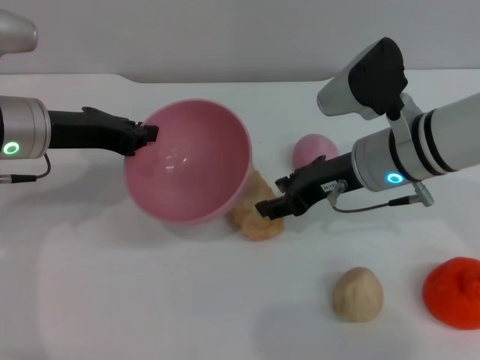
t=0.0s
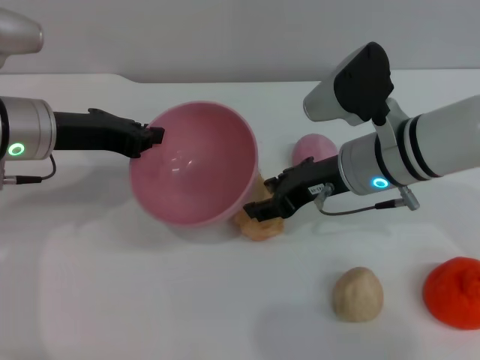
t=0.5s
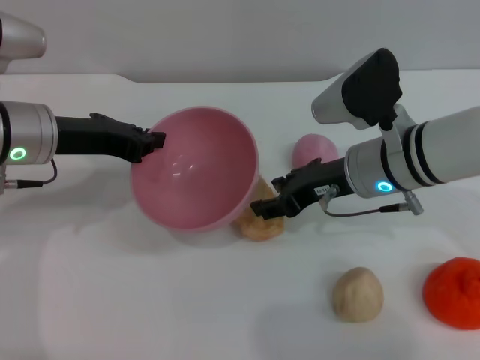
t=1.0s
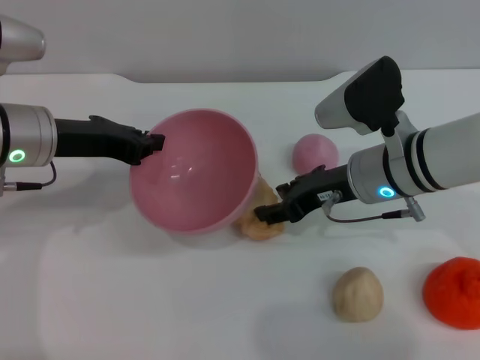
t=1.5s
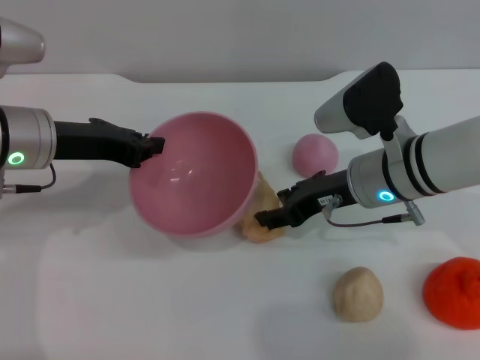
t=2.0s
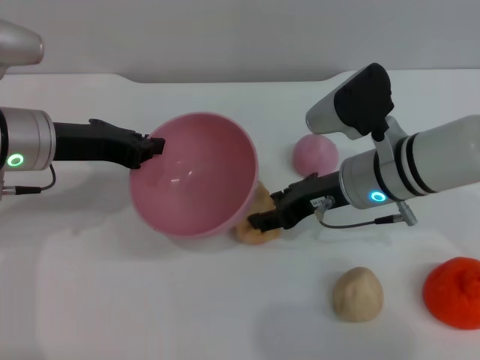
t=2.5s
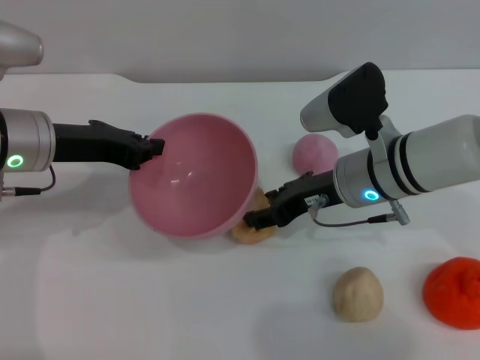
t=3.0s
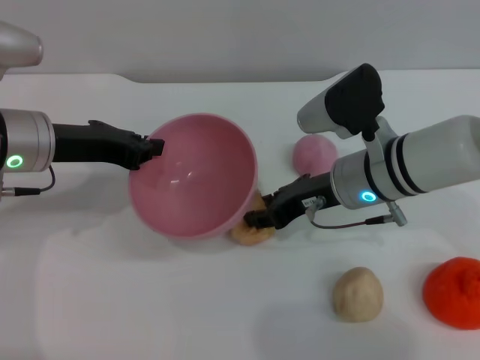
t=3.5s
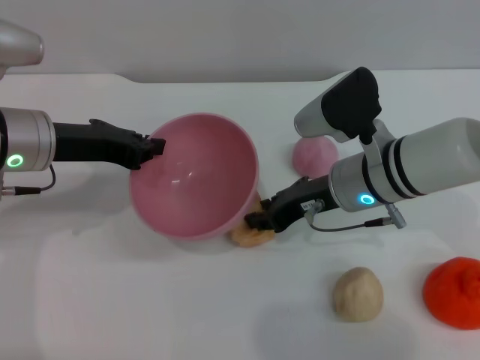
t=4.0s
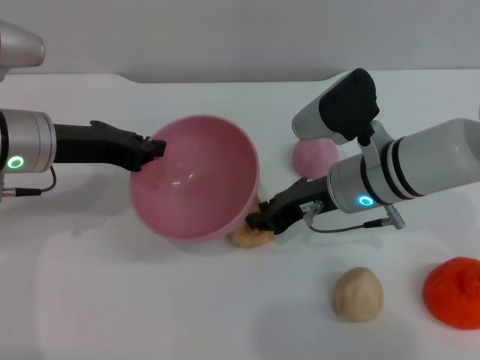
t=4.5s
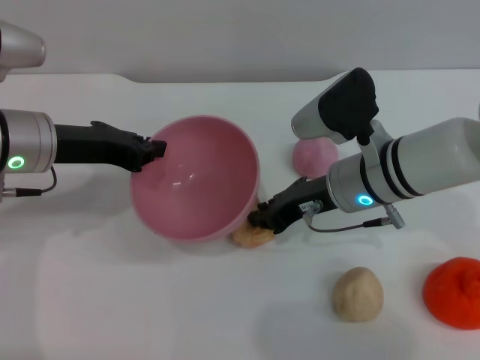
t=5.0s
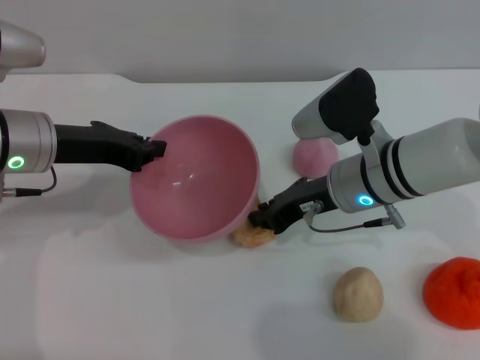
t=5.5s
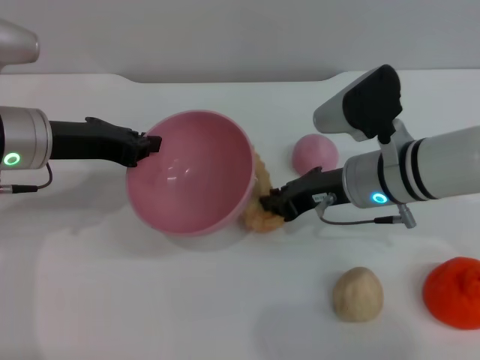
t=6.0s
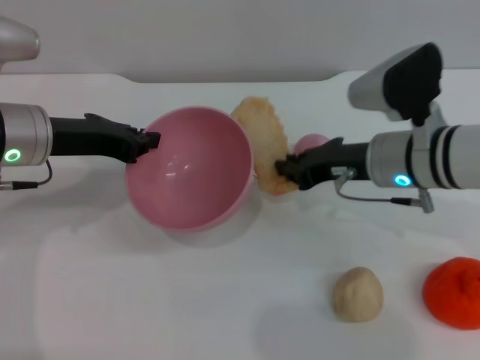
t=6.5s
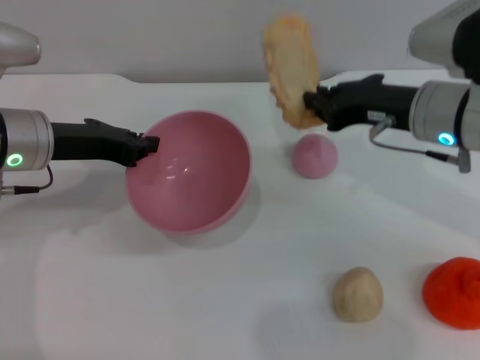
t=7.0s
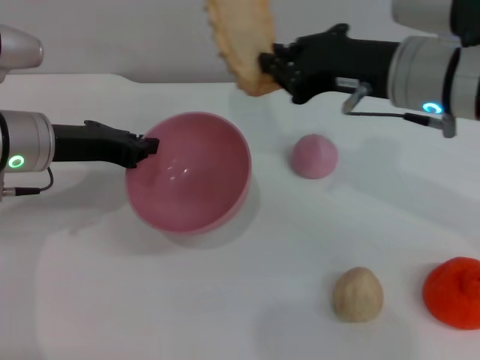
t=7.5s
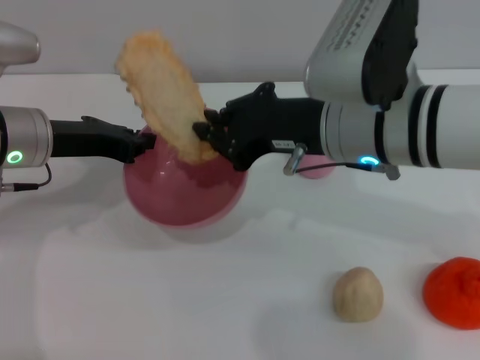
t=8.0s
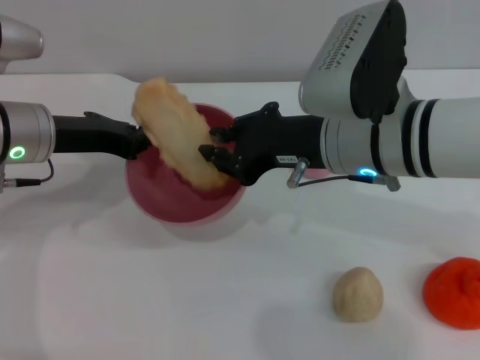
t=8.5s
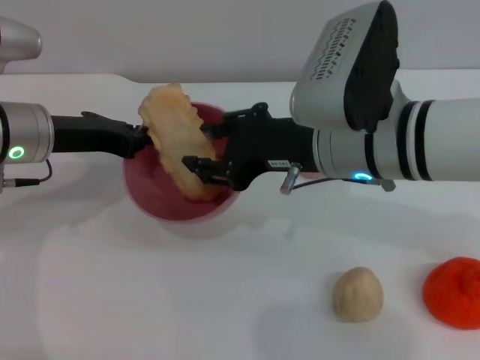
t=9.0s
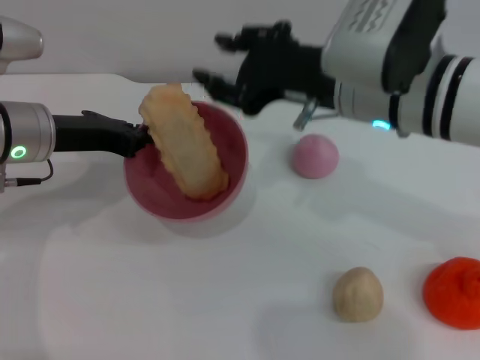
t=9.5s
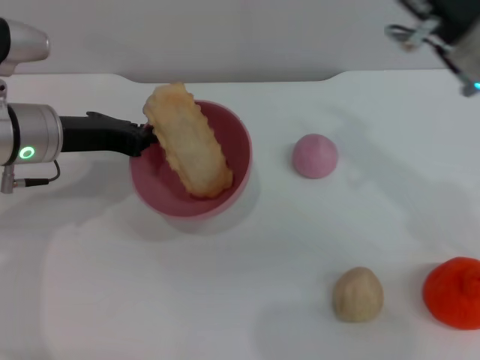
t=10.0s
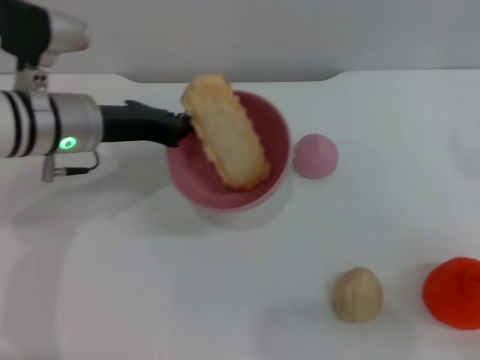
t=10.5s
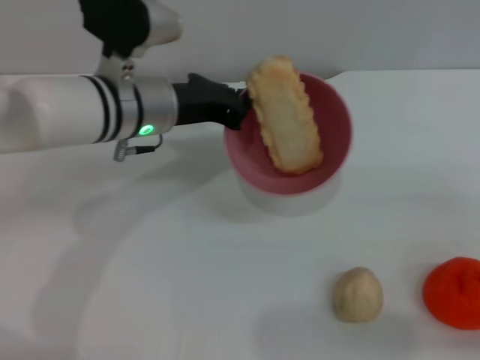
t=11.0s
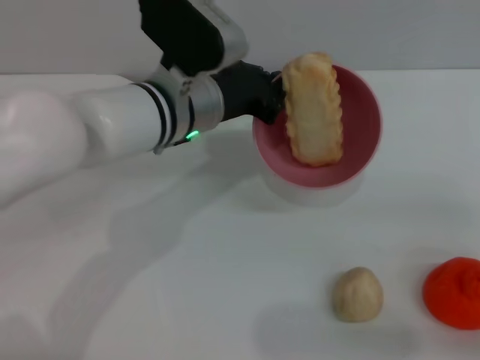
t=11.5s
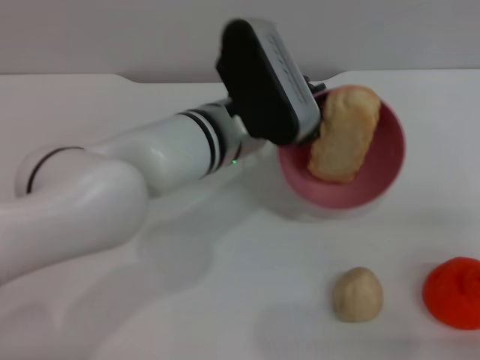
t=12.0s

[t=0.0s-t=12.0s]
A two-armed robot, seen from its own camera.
Task of the whole recording: put the bread into the pink bowl and pour it out repeatedly.
Step, t=0.0s to t=6.5s: Pick up the bread with the right gripper.
Step, t=7.5s to t=9.5s: Place the bread into the bowl.
t=0.0s to t=2.0s: The right gripper opens up.
t=2.0s to t=4.0s: The right gripper closes.
t=4.0s to t=6.0s: The right gripper closes up.
t=6.0s to t=8.0s: The right gripper is displaced upward by some 10 cm.
t=8.0s to t=10.0s: The right gripper is displaced to the right by approximately 5 cm, and opens.
t=10.0s to t=12.0s: The left gripper heads to the right, covering some 20 cm, while the right gripper heads to the right, downward and backward, covering roughly 25 cm.

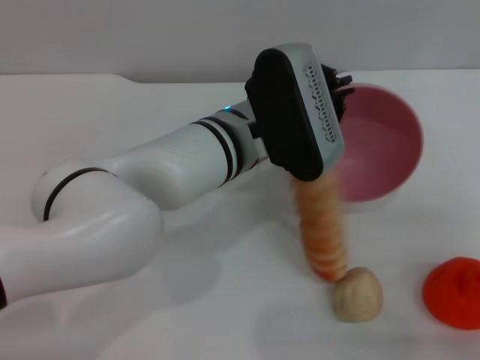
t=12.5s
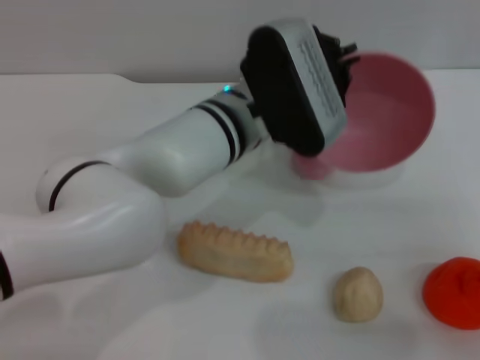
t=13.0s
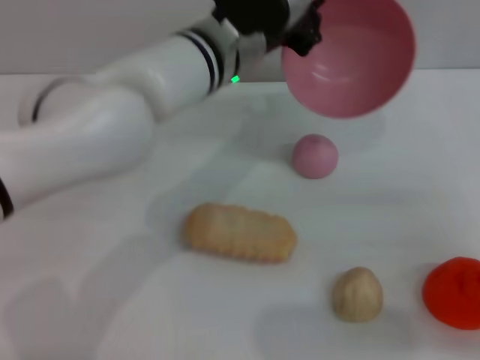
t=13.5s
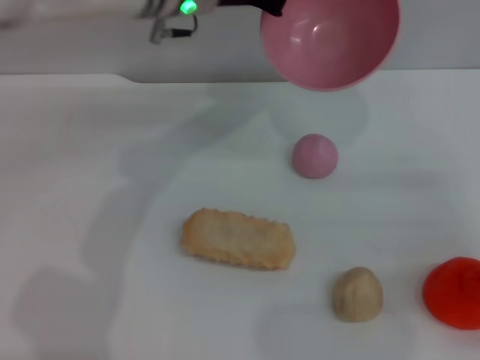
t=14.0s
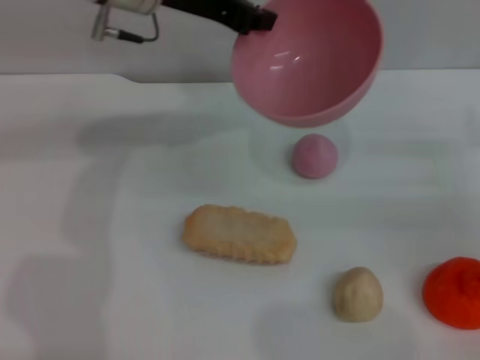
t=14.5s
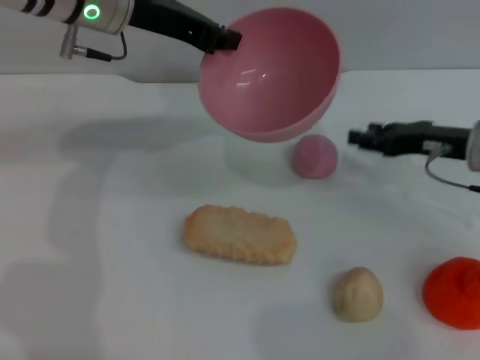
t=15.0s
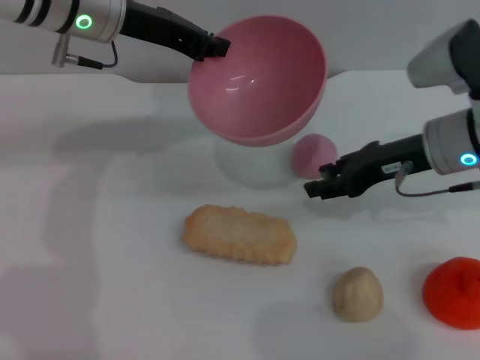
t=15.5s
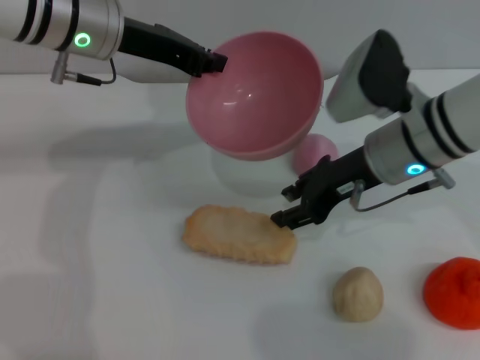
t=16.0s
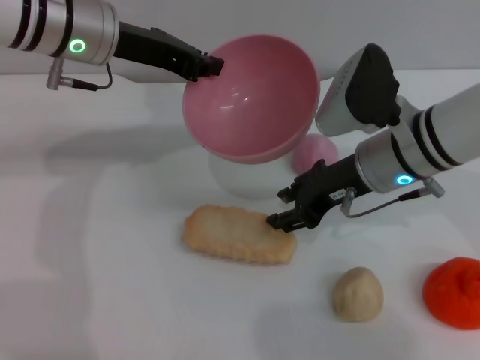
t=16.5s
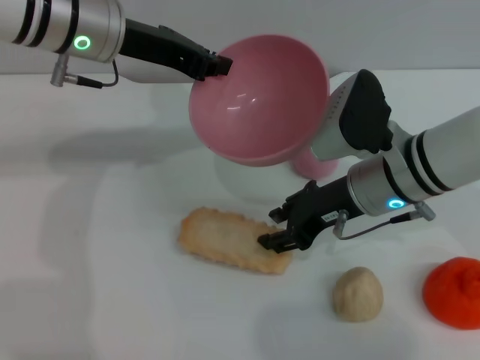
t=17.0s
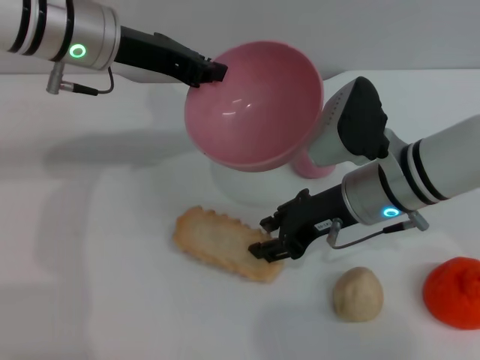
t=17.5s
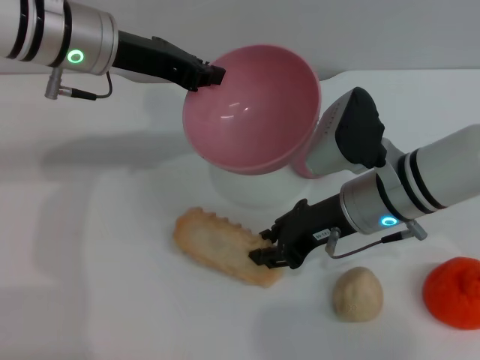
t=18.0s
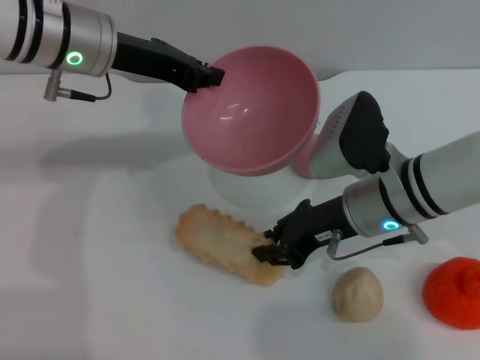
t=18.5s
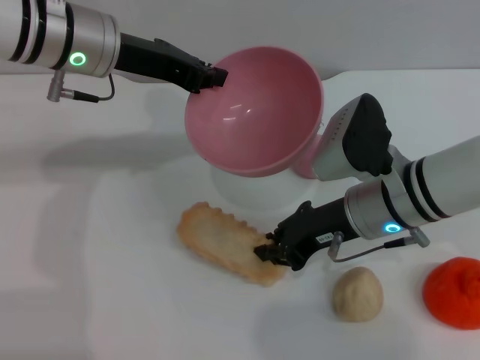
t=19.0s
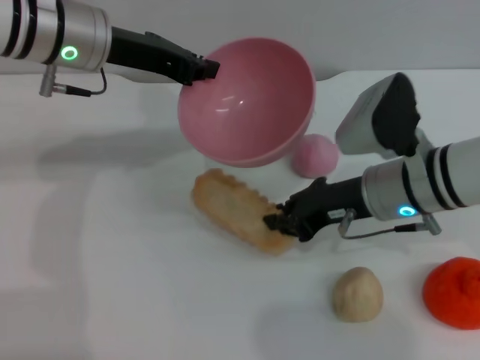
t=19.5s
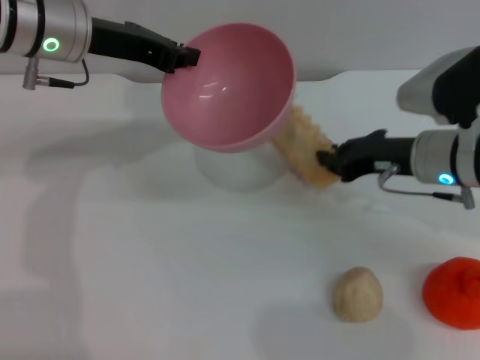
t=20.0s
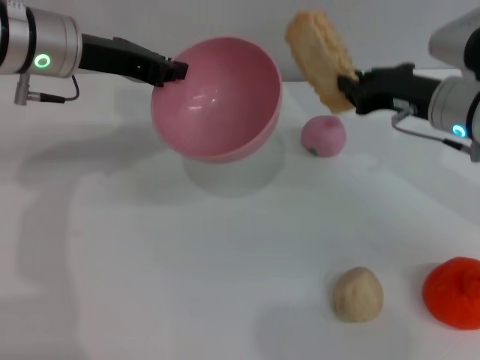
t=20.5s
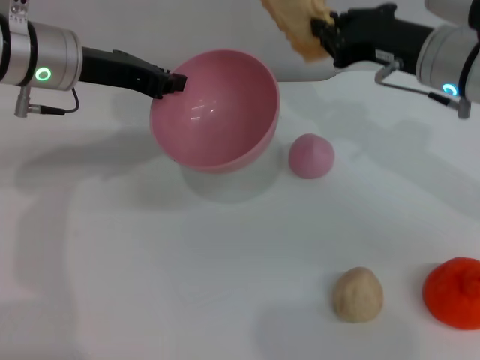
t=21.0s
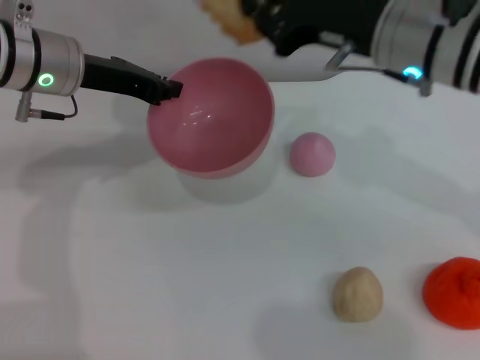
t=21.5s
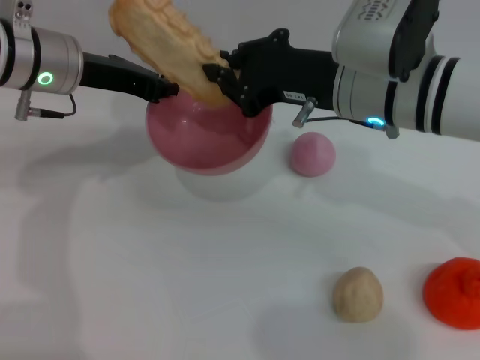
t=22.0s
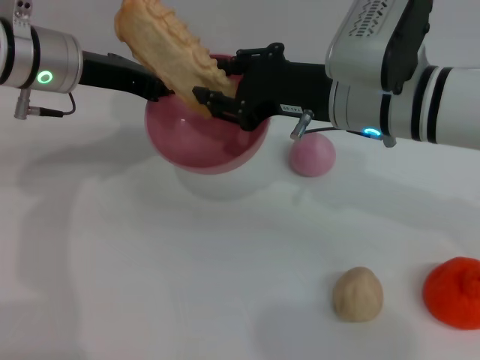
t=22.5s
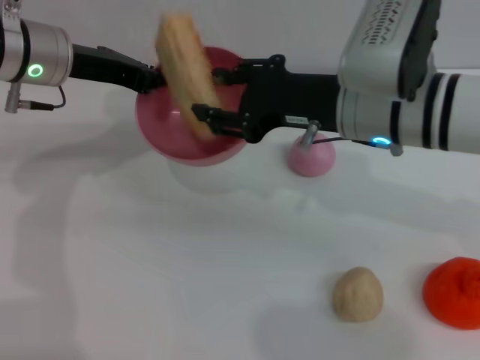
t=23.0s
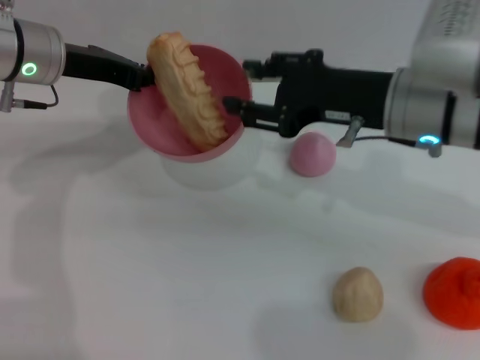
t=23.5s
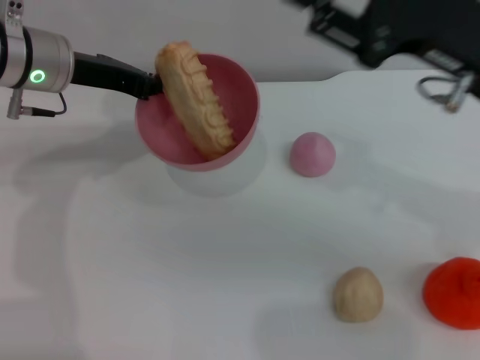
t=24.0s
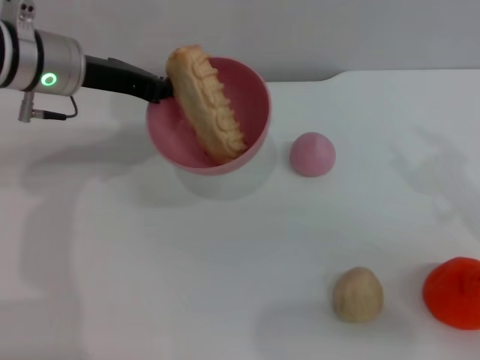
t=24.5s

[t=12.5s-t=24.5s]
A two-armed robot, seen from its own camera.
Task of the whole recording: put the bread into the pink bowl and pour it out repeatedly.
Step, t=13.0s to t=19.5s: Pick up the bread with the right gripper.
Step, t=20.0s to t=23.0s: Place the bread into the bowl.
t=12.5s to t=14.5s: The left gripper travels upward, to the left and forward by approximately 20 cm; the right gripper travels forward by roughly 10 cm.
t=14.5s to t=16.5s: The right gripper goes about 20 cm to the left, while the left gripper moves approximately 5 cm.
t=16.5s to t=18.5s: The right gripper closes its fingers.
t=18.5s to t=20.5s: The right gripper shifts roughly 10 cm to the right.
t=20.5s to t=22.5s: The right gripper moves to the left and upward, approximately 10 cm.
t=22.5s to t=24.5s: The right gripper goes about 15 cm to the right and backward, and opens up.

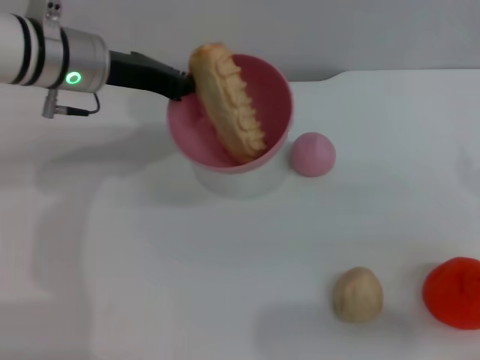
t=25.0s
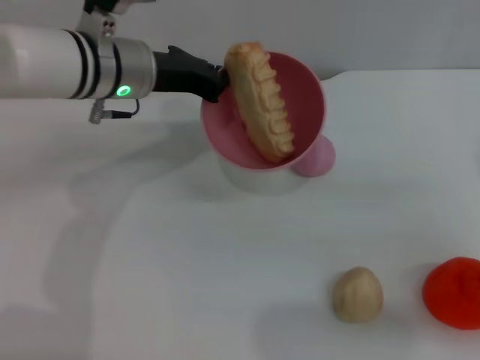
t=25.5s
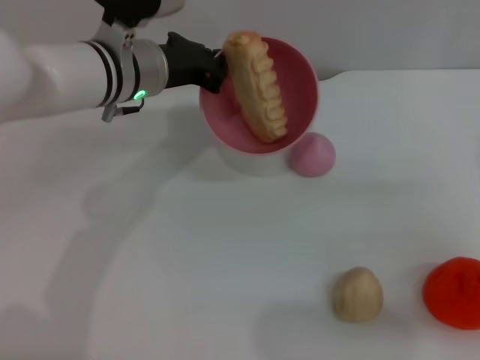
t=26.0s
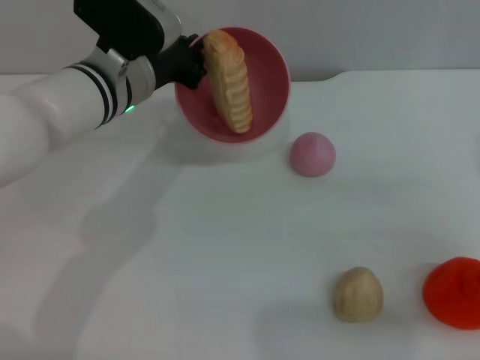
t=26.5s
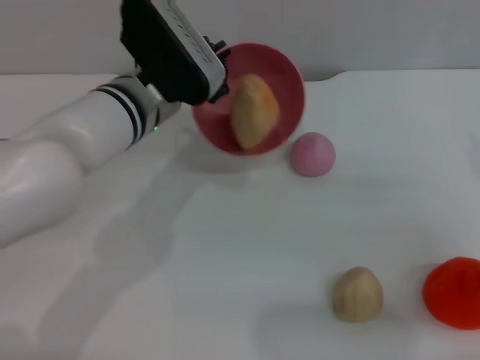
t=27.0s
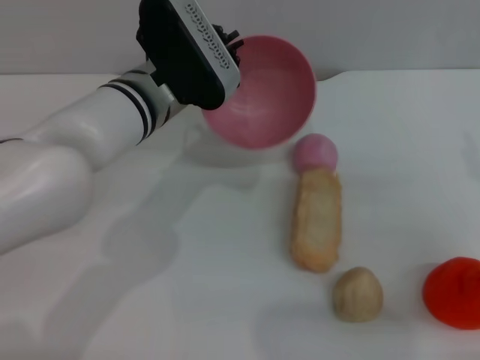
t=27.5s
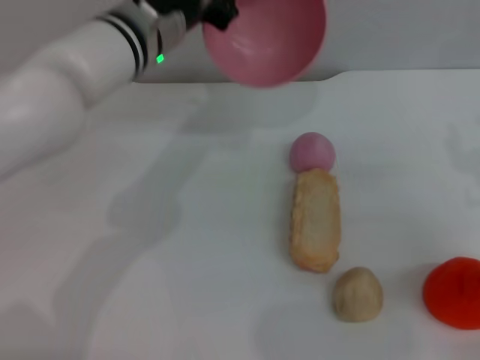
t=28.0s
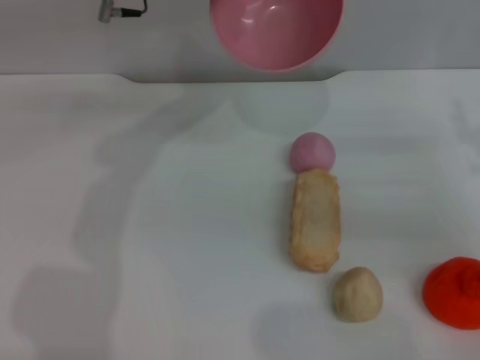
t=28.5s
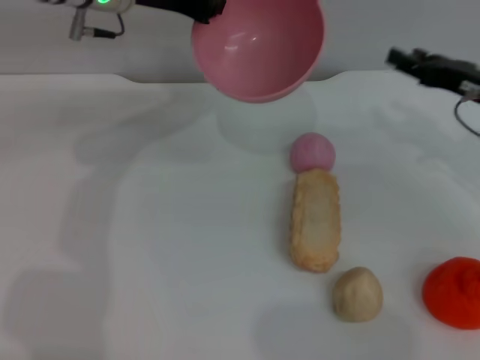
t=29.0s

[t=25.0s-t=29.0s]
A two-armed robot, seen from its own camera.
Task of the whole recording: put the bread into the pink bowl and pour it out repeatedly.
Step, t=25.0s to t=27.0s: Pour the bread out of the bowl.
t=25.0s to t=27.0s: The left gripper moves to the right, approximately 5 cm.
t=27.0s to t=29.0s: The left gripper moves upward and forward, some 15 cm. The right gripper goes approximately 15 cm forward.
